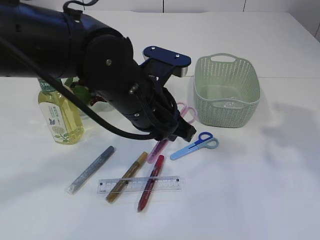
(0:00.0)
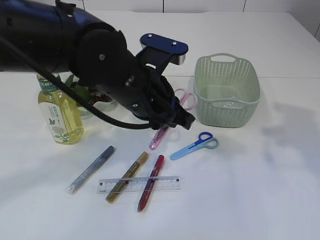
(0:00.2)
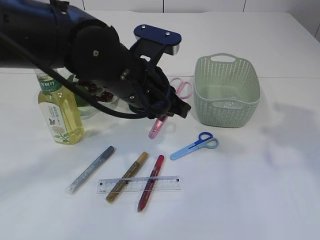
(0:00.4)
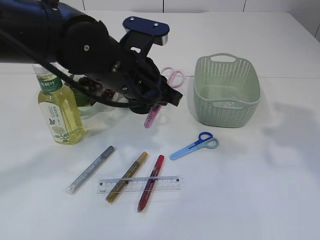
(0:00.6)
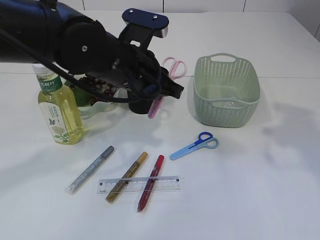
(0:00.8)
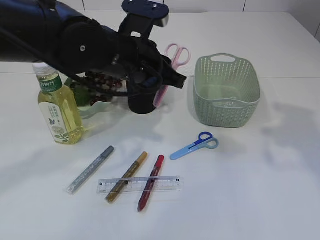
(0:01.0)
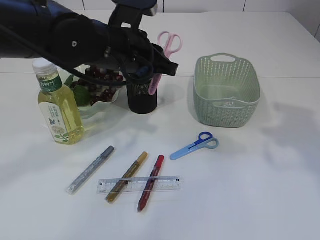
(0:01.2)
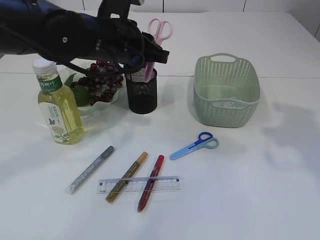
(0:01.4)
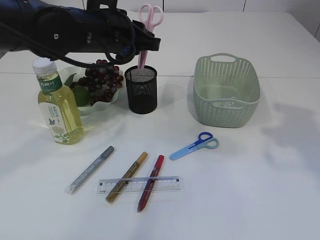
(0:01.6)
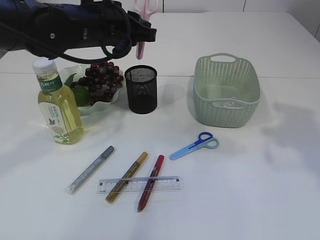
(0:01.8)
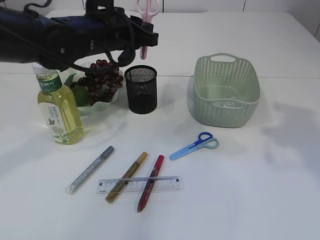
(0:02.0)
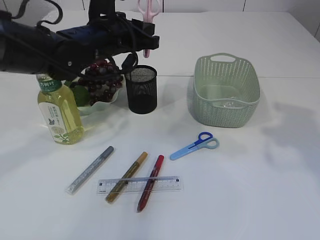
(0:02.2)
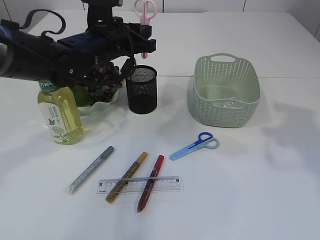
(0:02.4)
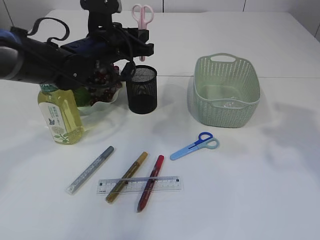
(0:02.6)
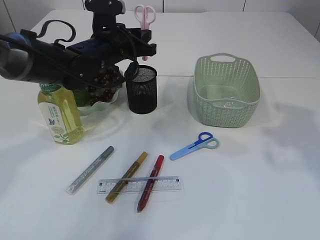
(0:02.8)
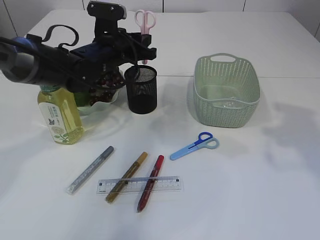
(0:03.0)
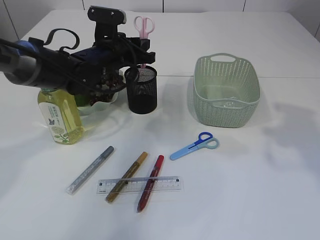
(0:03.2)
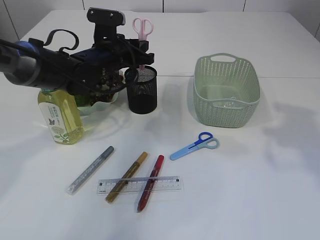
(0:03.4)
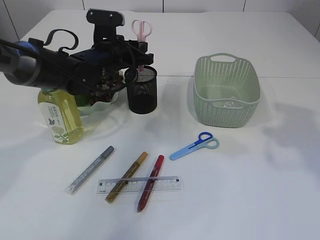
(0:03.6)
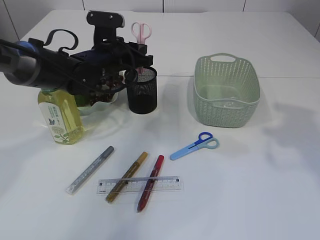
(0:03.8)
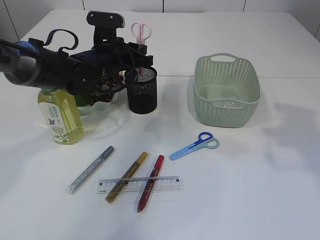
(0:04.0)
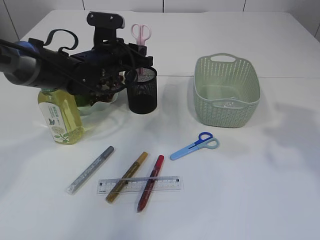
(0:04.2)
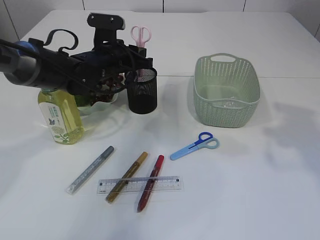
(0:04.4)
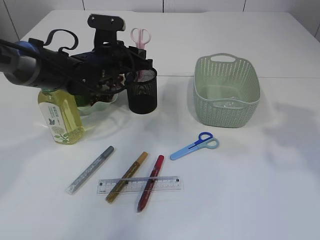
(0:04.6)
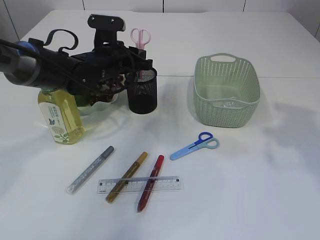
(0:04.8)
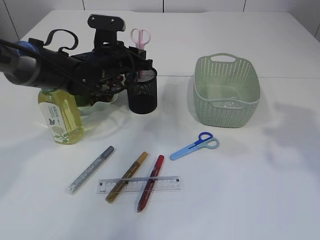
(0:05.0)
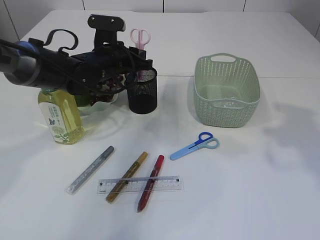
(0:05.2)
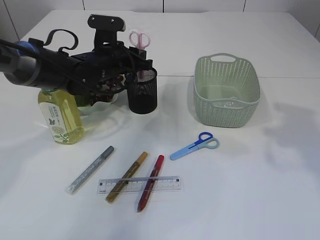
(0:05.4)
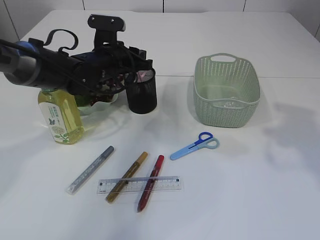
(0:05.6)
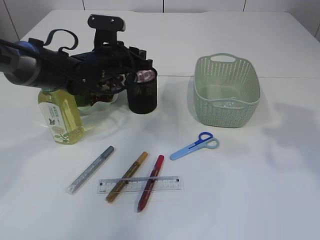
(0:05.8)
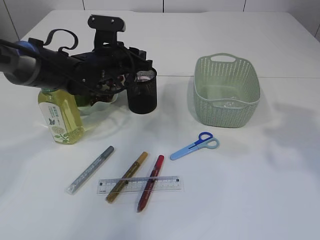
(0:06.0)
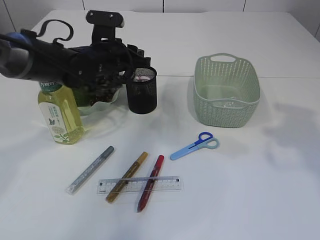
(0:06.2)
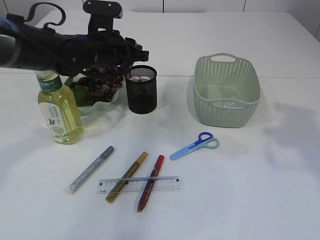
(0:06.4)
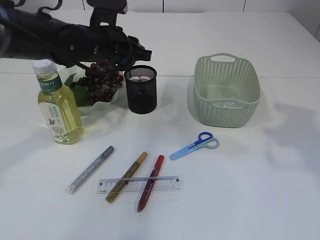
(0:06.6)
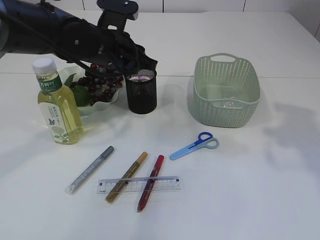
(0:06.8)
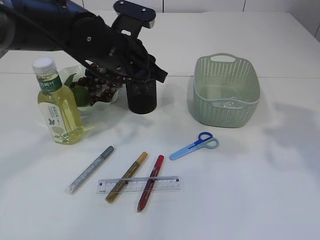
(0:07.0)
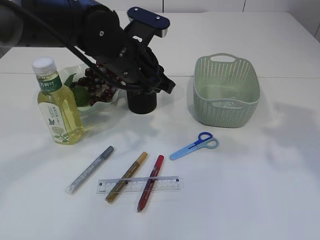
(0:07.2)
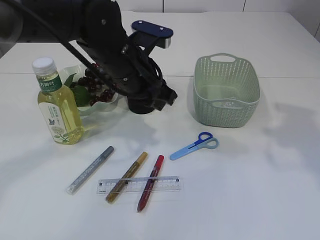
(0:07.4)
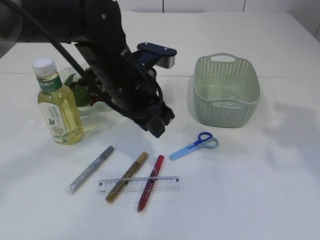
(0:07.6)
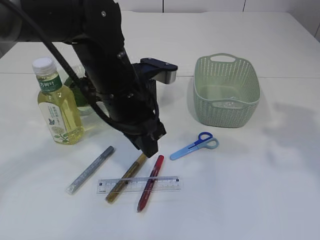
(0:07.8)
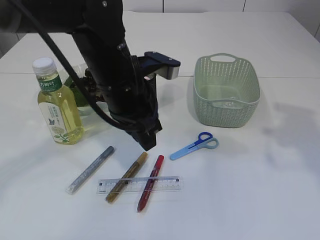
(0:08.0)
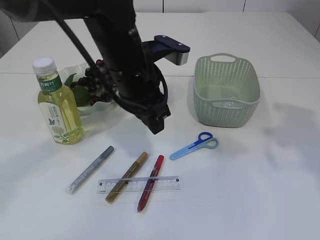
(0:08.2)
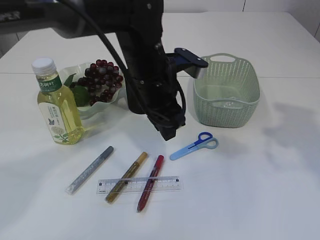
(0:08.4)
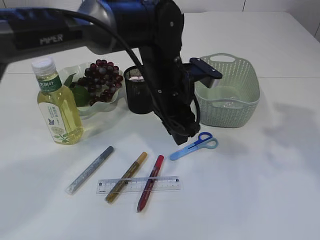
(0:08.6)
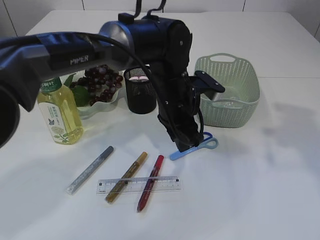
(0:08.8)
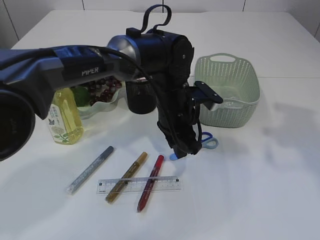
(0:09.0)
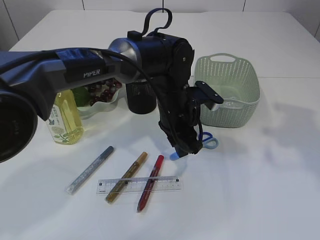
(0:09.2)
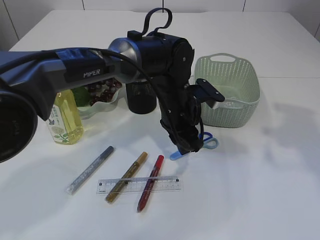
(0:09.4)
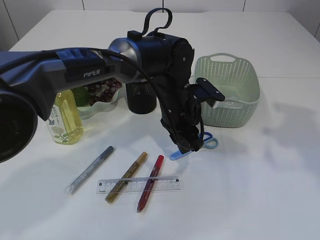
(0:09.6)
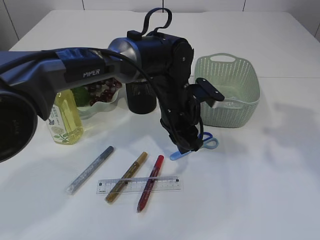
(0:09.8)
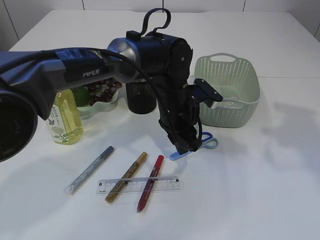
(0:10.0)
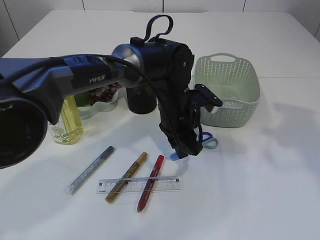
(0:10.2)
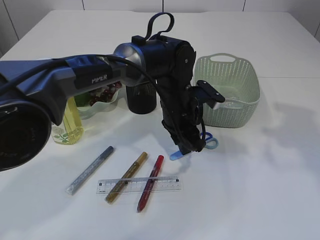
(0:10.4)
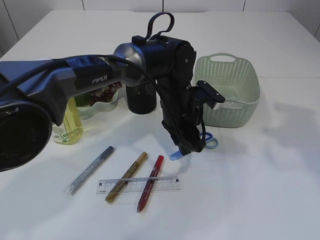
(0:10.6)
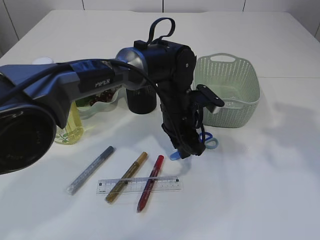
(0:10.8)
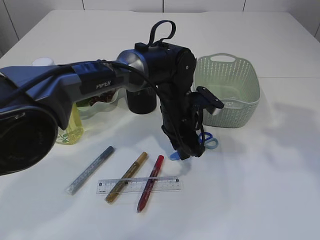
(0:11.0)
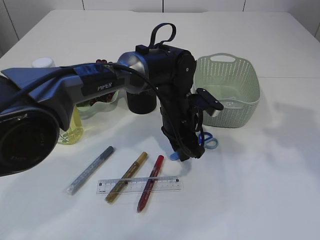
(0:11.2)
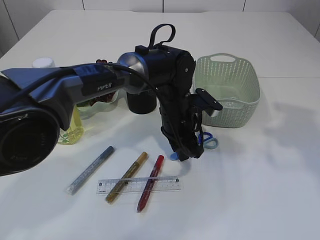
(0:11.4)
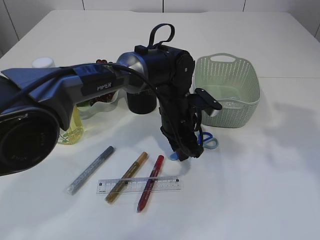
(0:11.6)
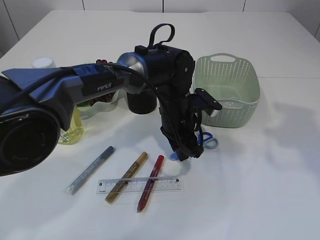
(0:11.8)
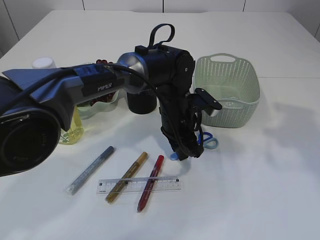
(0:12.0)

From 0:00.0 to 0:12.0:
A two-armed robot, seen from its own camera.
Step, from 0:00.0 to 0:06.4: Place the pink scissors into the pen holder.
From 0:00.0 to 0:01.6: The left gripper travels forward and to the left by about 10 cm.
From 0:01.6 to 0:03.0: The left gripper travels forward and downward by some 10 cm.
From 0:03.0 to 0:04.4: There are only small adjustments of the grippers.
From 0:04.4 to 0:06.0: Both grippers stay about where they are.
From 0:06.0 to 0:07.6: The left gripper shifts some 15 cm backward, to the right and upward.
From 0:07.6 to 0:09.0: The left gripper travels downward and to the right by roughly 10 cm.
From 0:09.0 to 0:12.0: There are only small adjustments of the grippers.

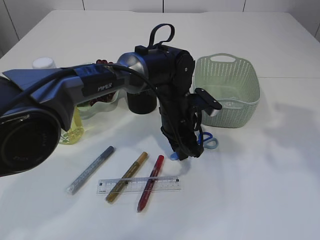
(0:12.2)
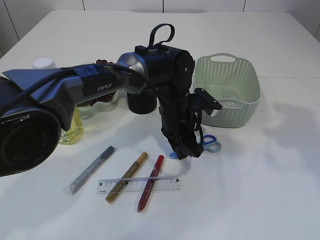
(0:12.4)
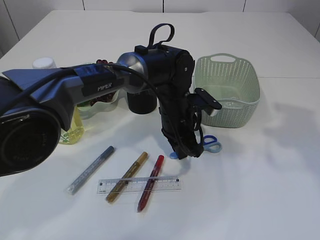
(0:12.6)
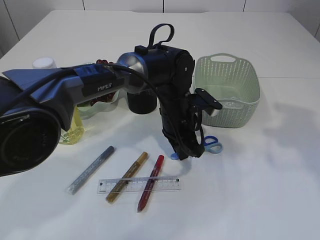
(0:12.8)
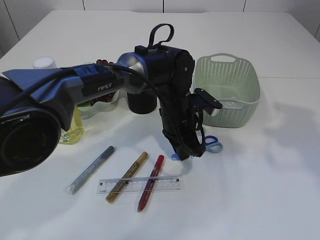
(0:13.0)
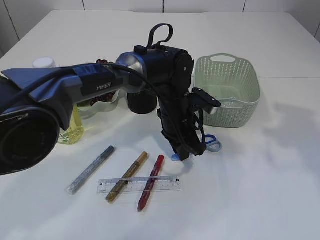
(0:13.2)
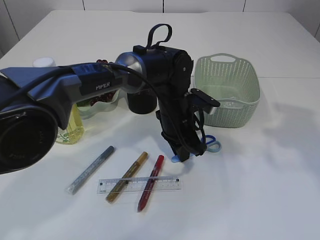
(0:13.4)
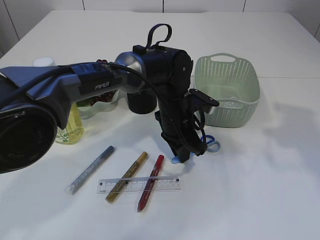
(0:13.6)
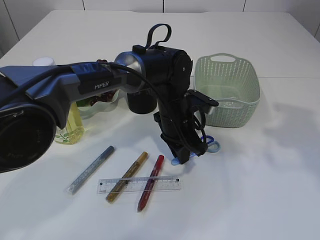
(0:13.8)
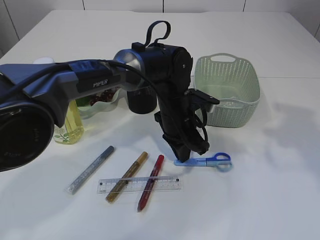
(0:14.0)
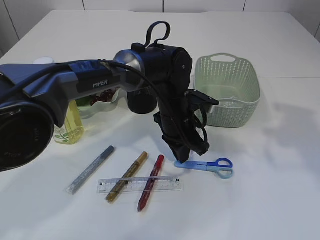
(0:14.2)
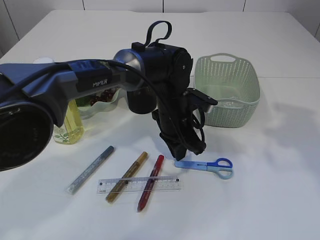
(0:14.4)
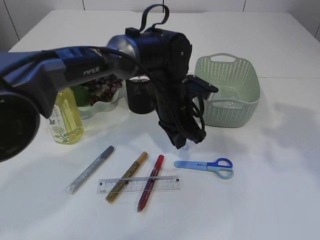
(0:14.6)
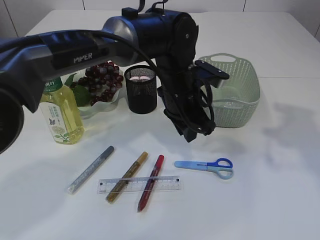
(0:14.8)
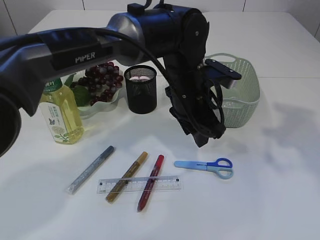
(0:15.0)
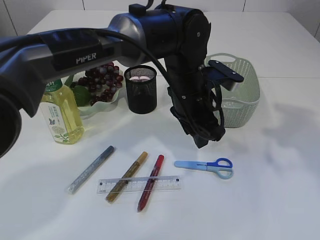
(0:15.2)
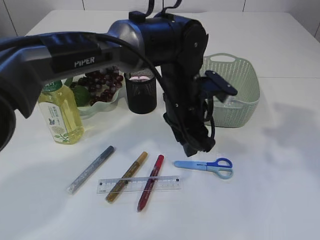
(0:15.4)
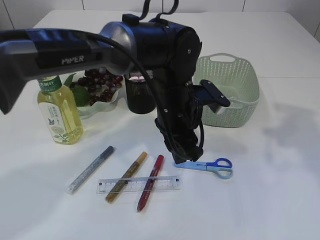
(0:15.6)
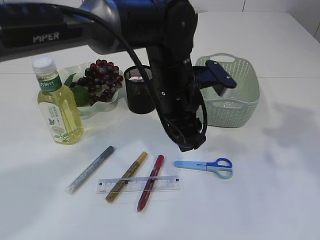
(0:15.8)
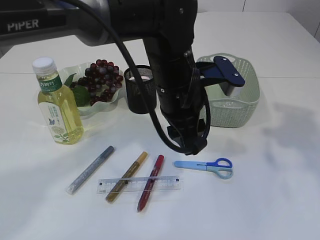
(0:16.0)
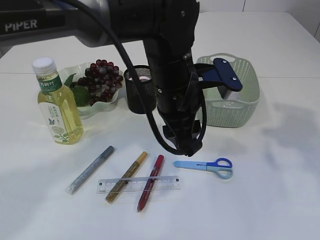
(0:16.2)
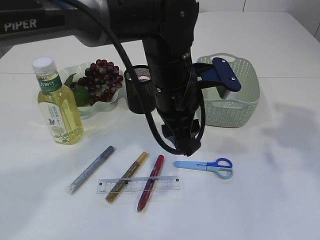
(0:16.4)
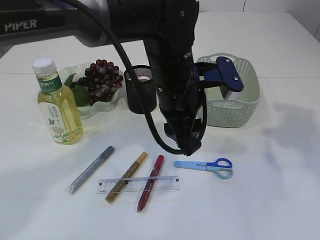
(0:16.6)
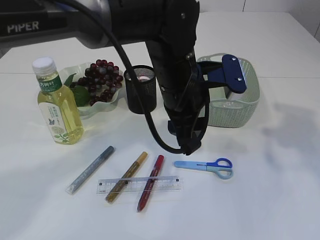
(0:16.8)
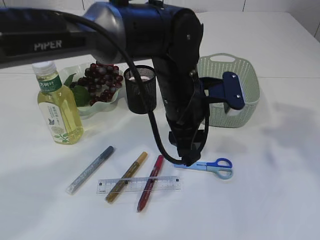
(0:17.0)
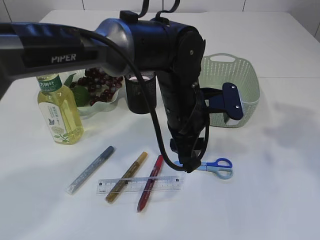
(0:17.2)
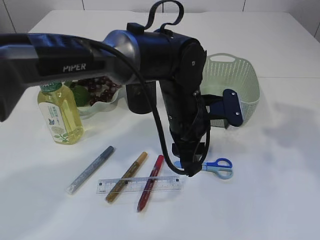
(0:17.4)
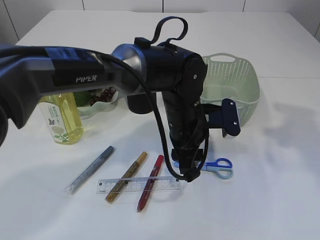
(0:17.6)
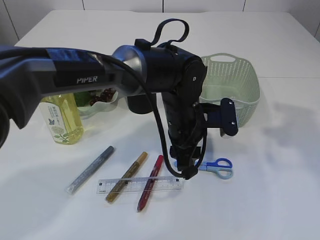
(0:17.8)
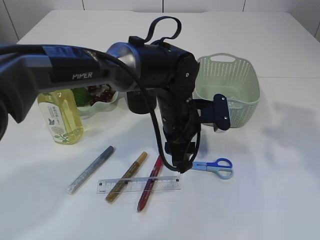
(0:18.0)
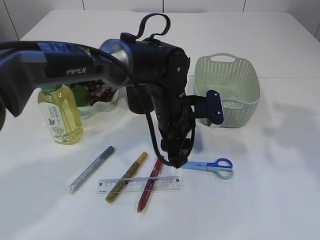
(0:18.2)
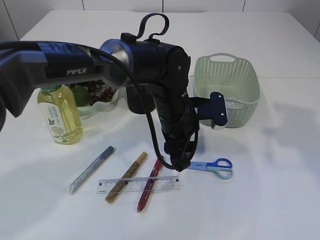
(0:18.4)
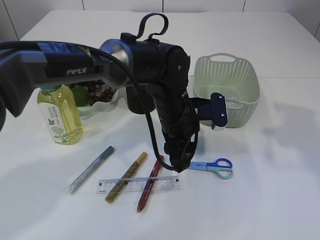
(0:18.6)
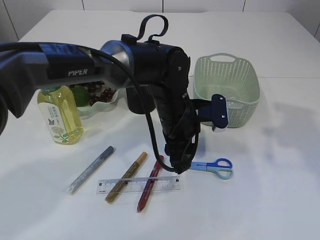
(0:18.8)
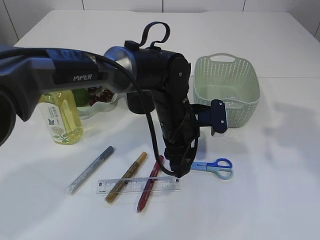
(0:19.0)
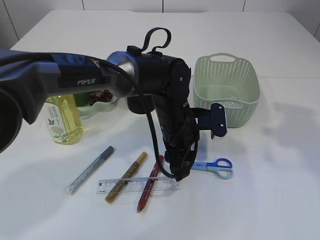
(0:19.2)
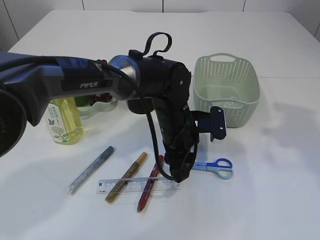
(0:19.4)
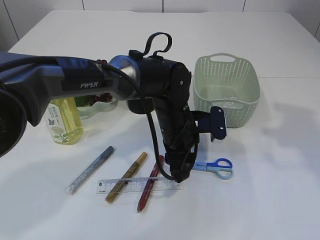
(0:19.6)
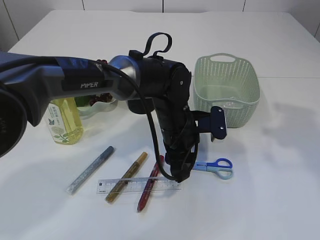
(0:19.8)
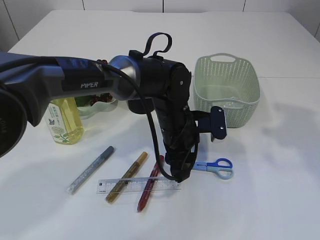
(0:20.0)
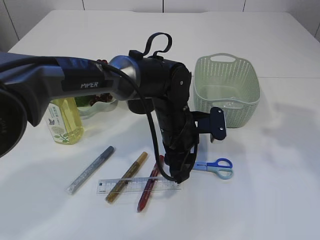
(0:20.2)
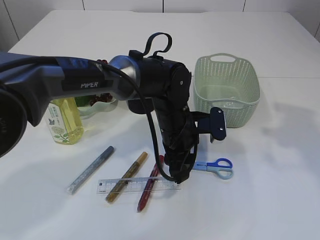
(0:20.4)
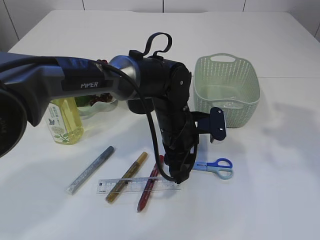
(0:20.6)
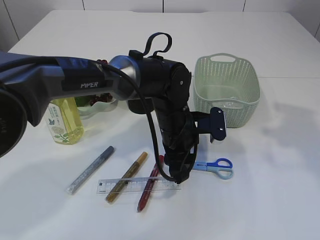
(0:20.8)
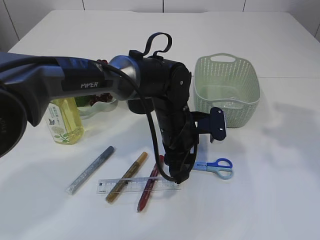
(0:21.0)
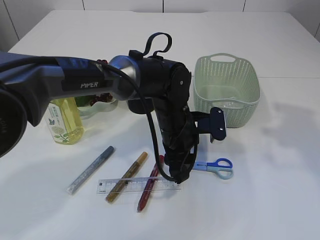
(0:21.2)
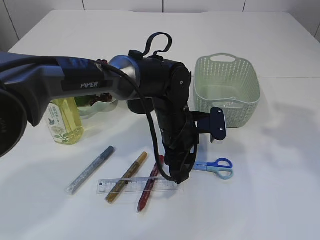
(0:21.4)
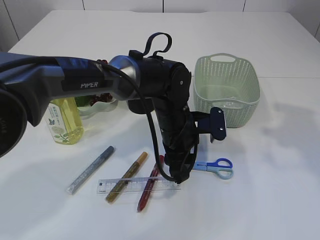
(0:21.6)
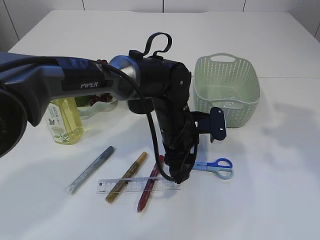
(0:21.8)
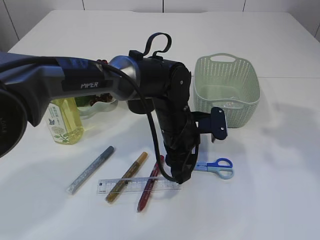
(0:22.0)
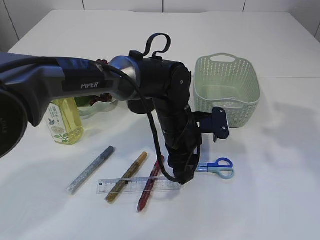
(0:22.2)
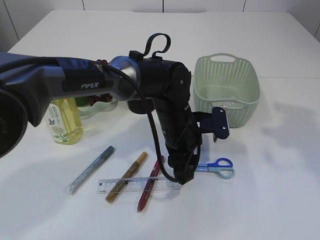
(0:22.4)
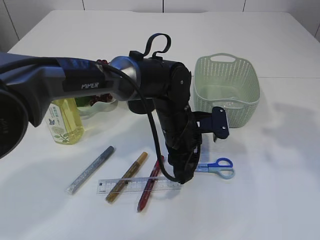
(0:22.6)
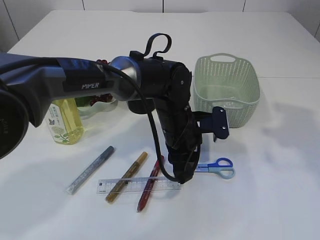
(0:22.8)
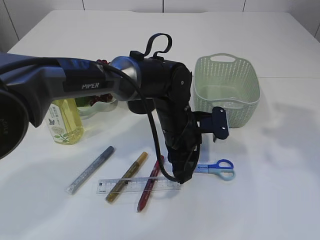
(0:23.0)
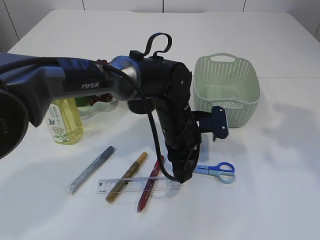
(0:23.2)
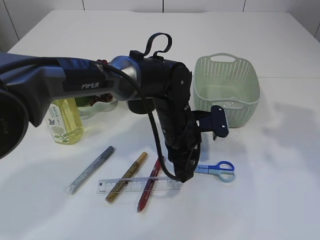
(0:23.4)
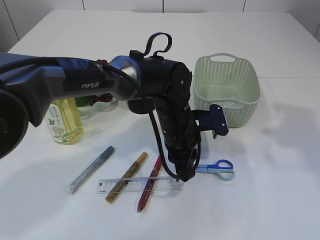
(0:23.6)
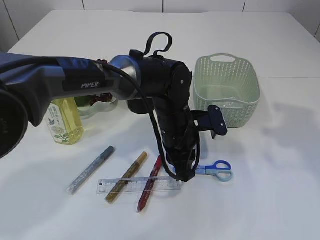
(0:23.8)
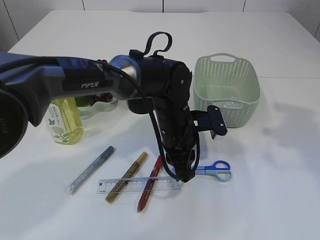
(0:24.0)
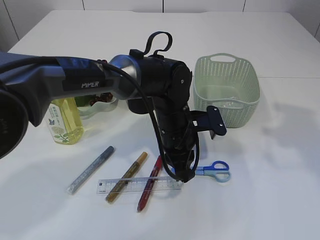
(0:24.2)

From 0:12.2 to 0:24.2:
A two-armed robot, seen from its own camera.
From 0:12.2 to 0:13.8: There are only small adjustments of the grippers.
From 0:13.8 to 0:15.2: The left gripper heads upward, covering roughly 10 cm, and opens up.
From 0:15.2 to 0:16.6: The left gripper shifts by roughly 5 cm.
From 0:16.6 to 0:18.2: The left gripper shifts about 10 cm downward.
From 0:18.2 to 0:19.8: The grippers stay close to where they were, moving slightly.
From 0:19.8 to 0:22.6: Both grippers stay about where they are.
From 0:22.6 to 0:24.2: The grippers make only small movements.
